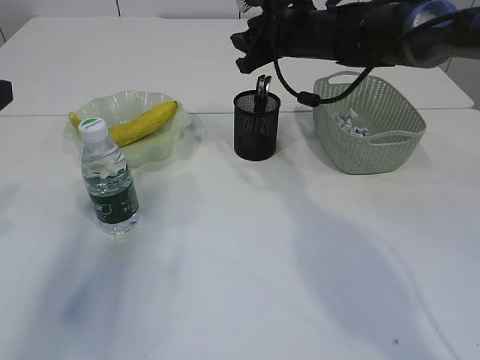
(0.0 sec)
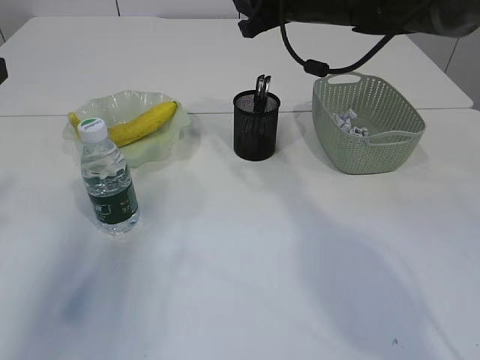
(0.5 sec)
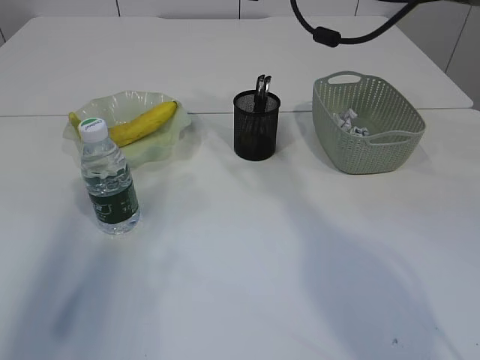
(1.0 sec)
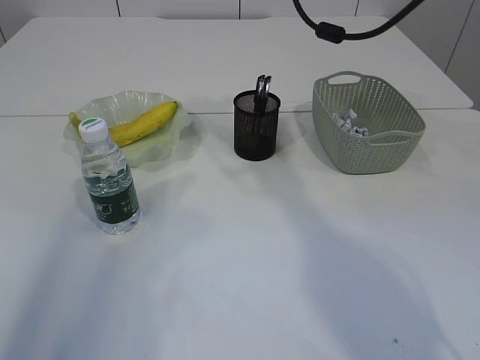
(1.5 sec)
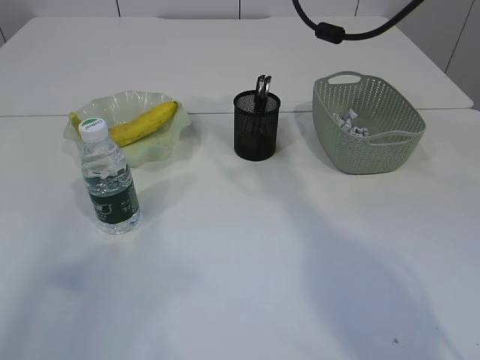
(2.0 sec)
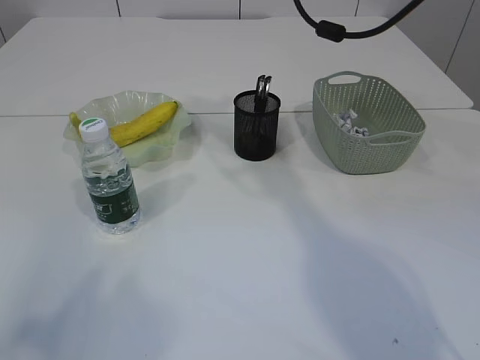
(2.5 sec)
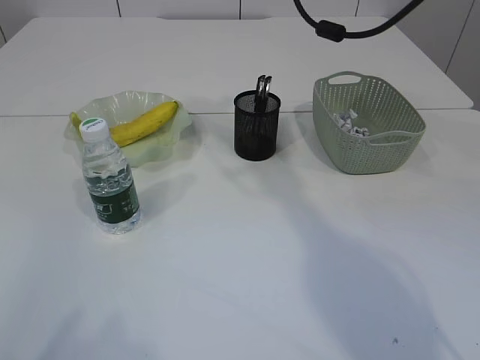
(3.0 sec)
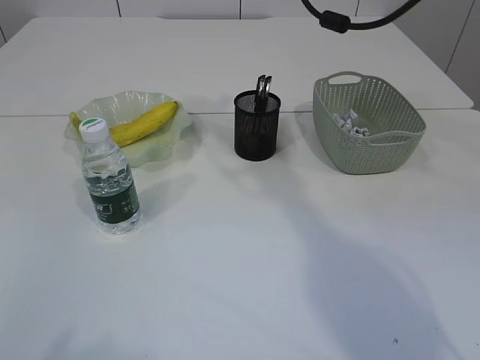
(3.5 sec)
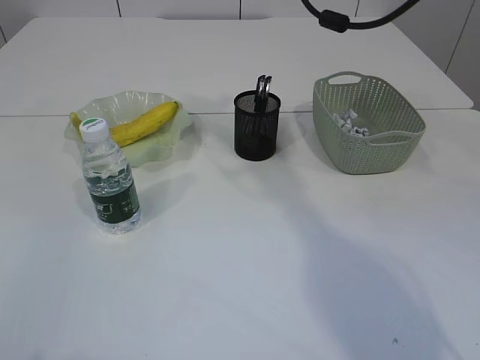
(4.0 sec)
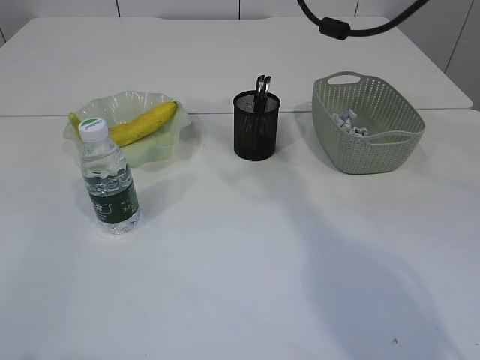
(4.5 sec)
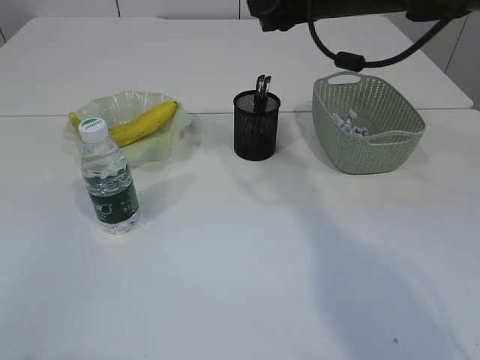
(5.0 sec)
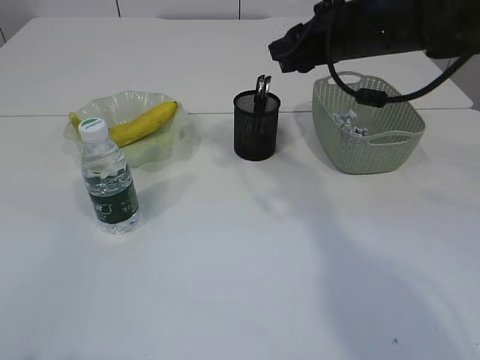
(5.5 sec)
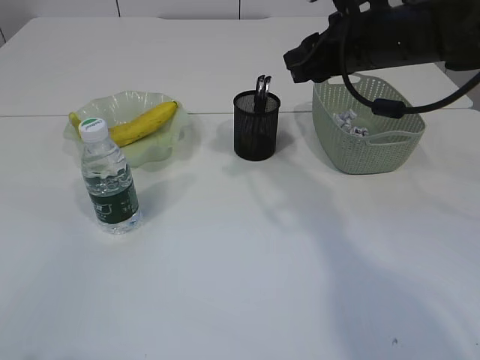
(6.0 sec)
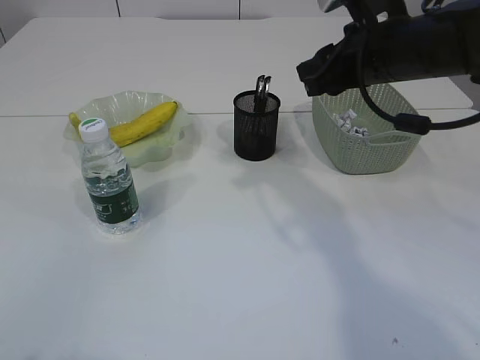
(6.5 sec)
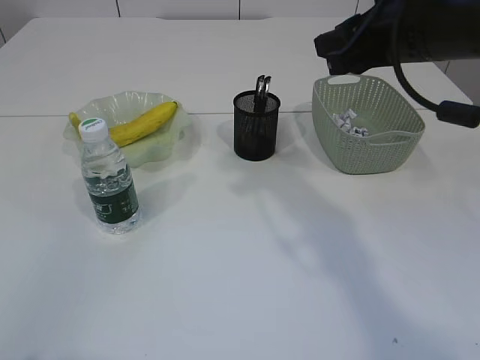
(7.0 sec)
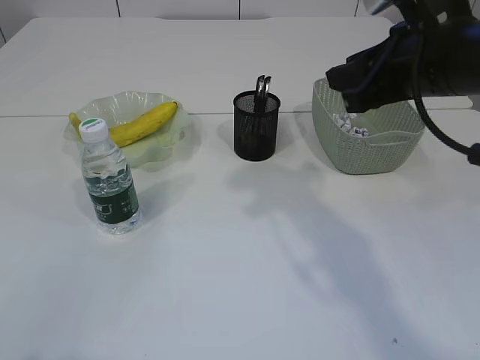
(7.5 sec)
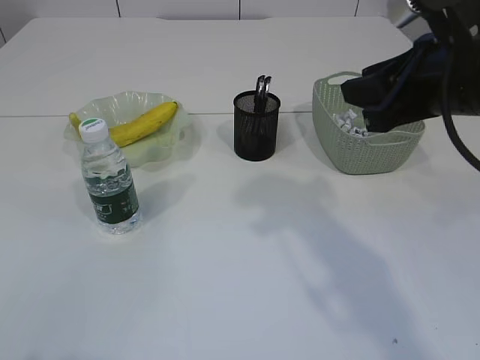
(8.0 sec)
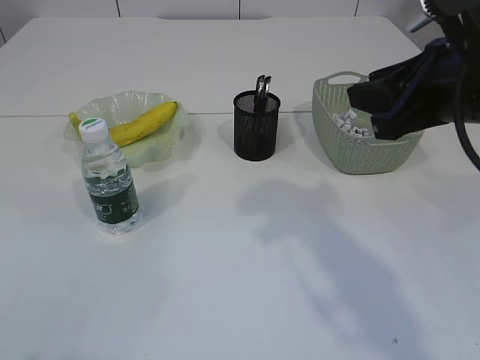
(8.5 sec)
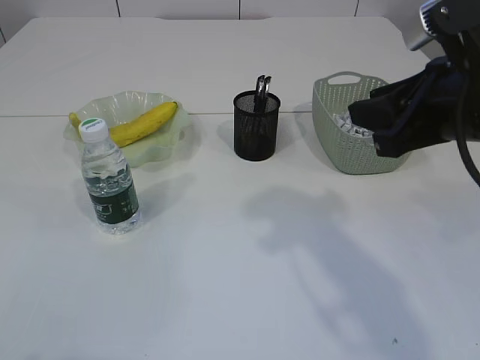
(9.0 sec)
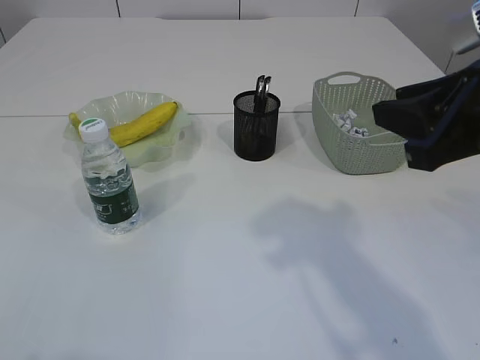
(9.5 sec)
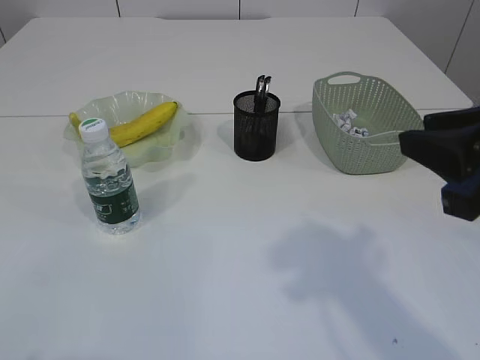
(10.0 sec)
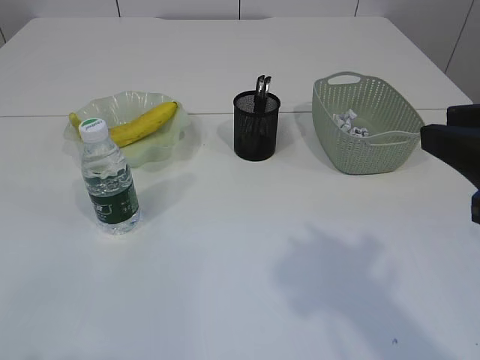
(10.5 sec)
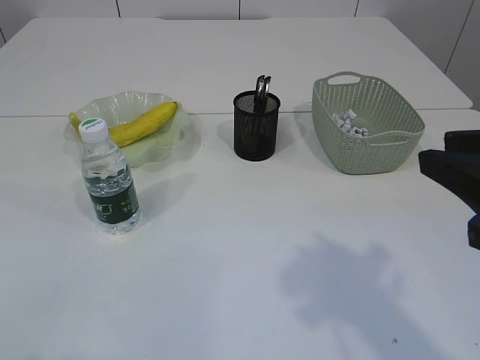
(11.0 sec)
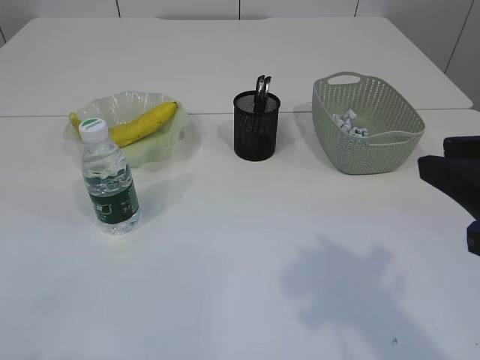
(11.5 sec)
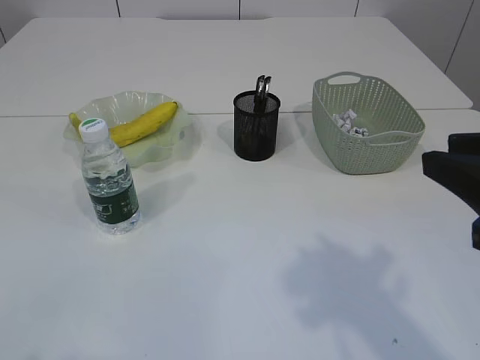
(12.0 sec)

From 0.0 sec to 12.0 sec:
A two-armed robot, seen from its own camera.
From 0.0 sec to 2.0 sec: The right gripper is displaced upward by roughly 10 cm. Meanwhile the left gripper goes approximately 15 cm backward and upward.
From 2.0 sec to 4.0 sec: The left gripper goes about 10 cm backward.
From 4.0 sec to 6.0 sec: The right gripper is displaced downward and backward by roughly 10 cm.
From 6.0 sec to 8.0 sec: The right gripper goes roughly 10 cm backward.
From 8.0 sec to 10.0 sec: The right gripper moves backward, some 10 cm.
From 10.0 sec to 12.0 sec: There are only small adjustments of the grippers.

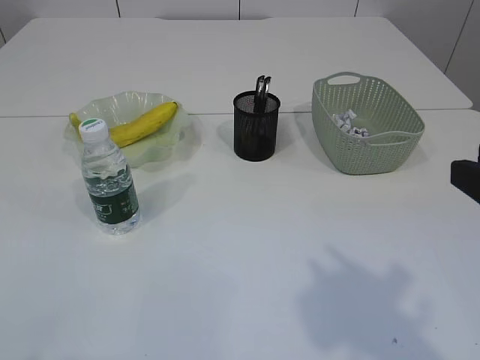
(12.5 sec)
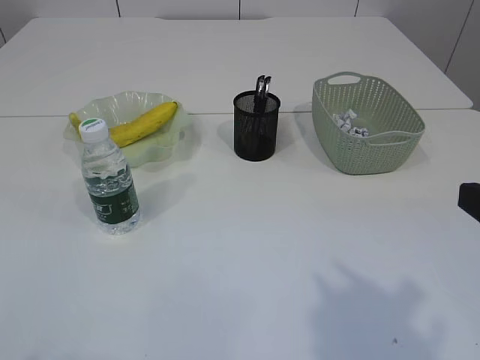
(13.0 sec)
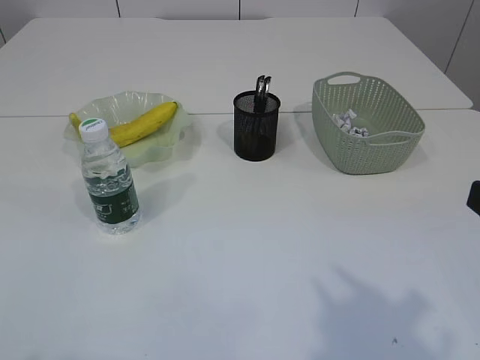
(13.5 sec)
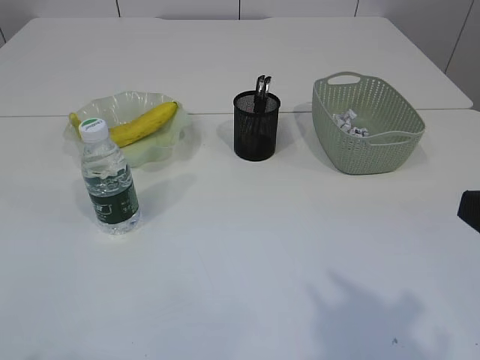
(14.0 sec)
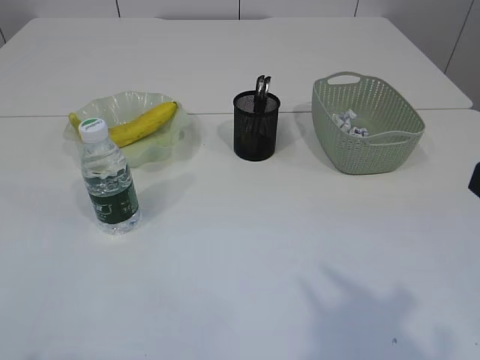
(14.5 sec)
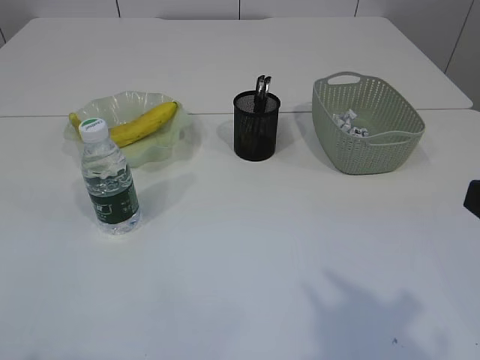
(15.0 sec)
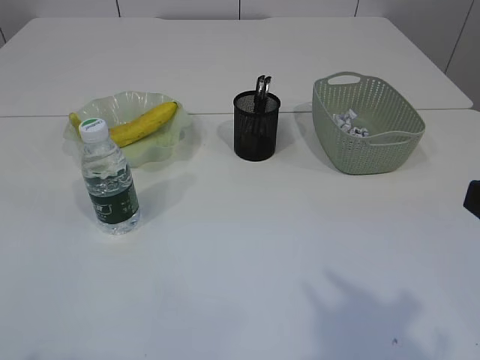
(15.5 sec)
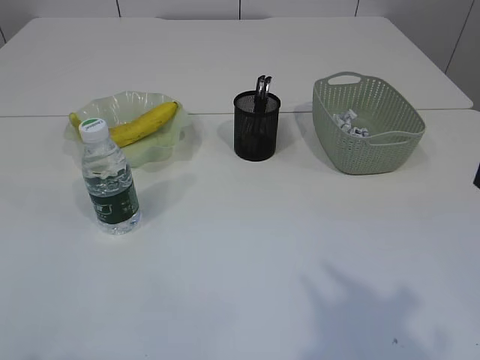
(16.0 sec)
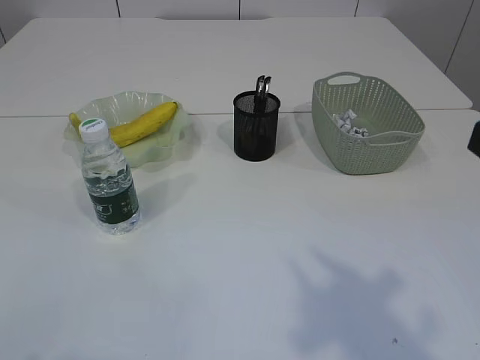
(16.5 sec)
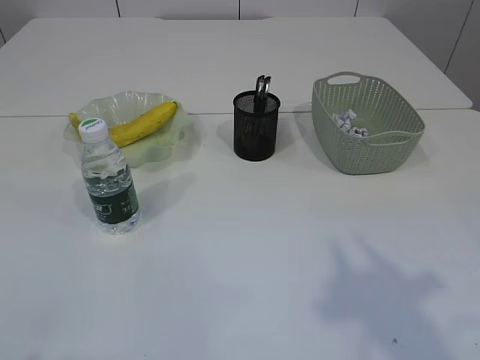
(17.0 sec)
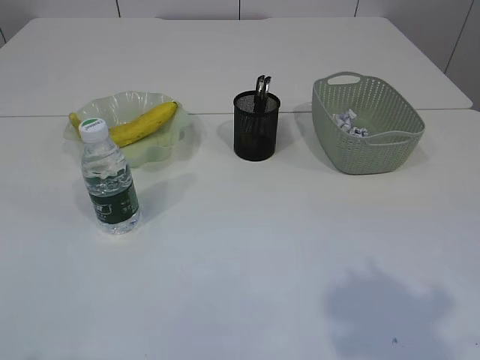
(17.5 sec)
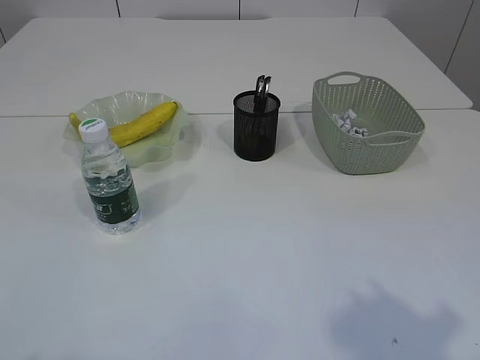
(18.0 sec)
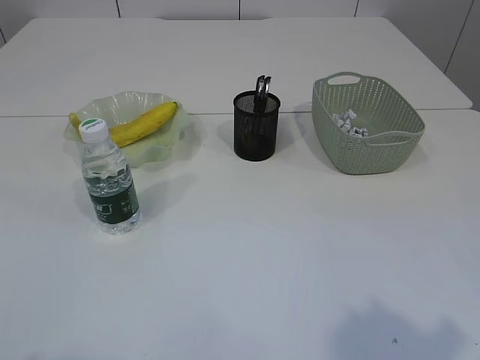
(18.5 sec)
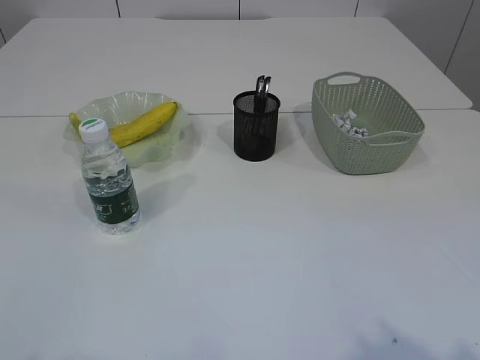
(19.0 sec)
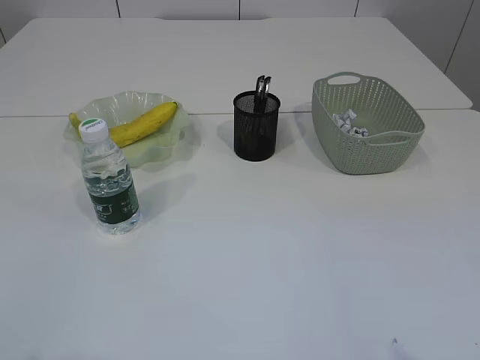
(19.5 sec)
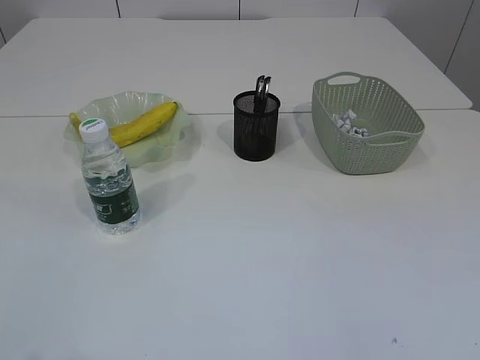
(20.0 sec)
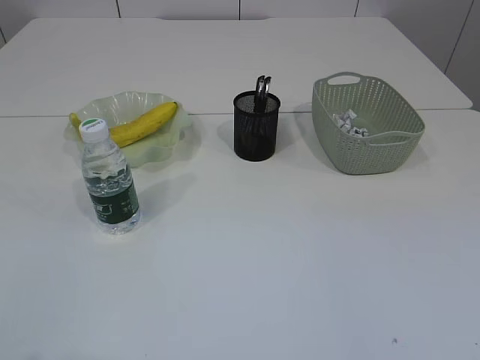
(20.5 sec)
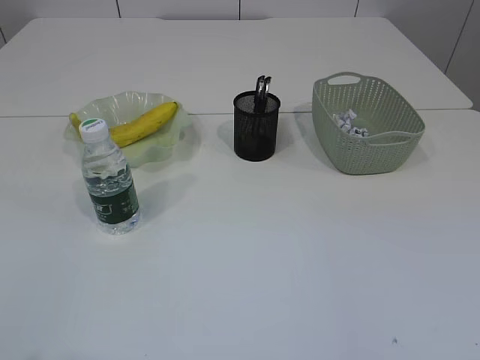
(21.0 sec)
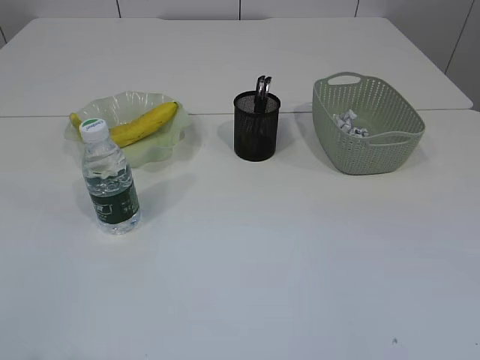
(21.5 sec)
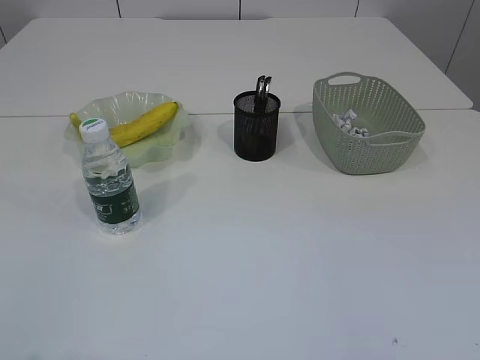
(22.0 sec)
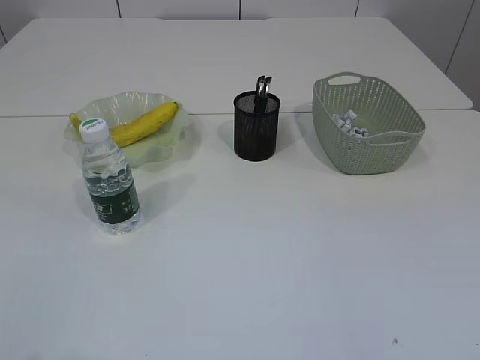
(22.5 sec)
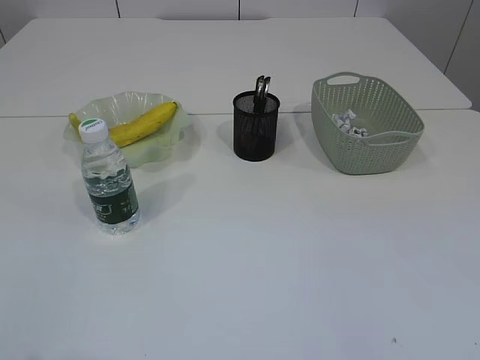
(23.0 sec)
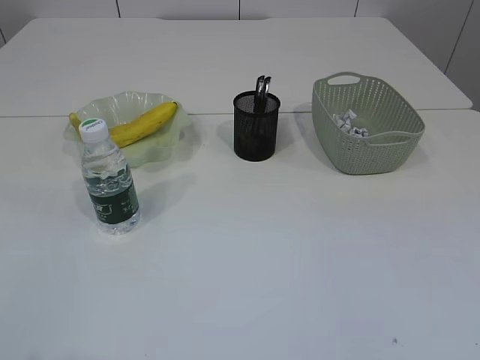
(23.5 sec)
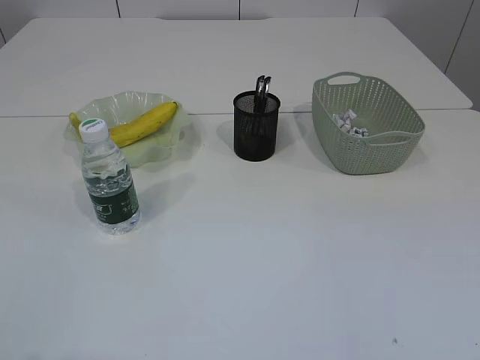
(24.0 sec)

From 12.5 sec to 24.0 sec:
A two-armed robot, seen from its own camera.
From 14.5 sec to 16.5 sec: The grippers make only small movements.
